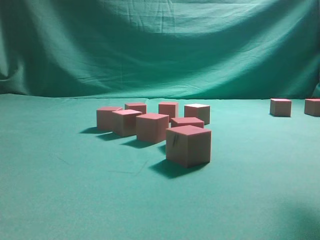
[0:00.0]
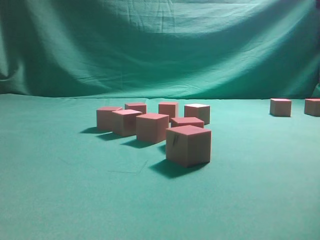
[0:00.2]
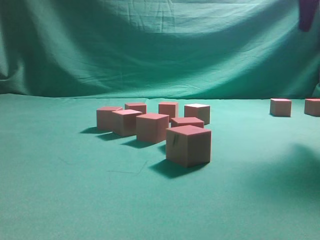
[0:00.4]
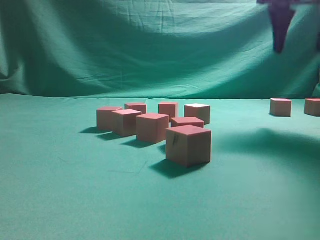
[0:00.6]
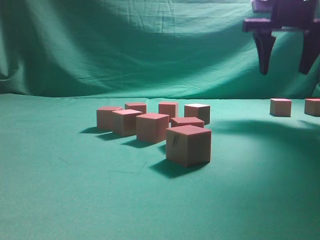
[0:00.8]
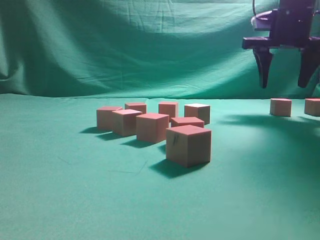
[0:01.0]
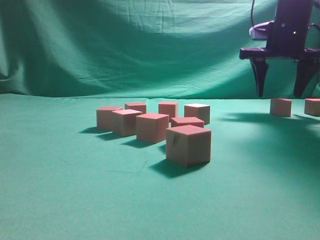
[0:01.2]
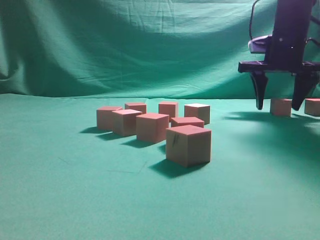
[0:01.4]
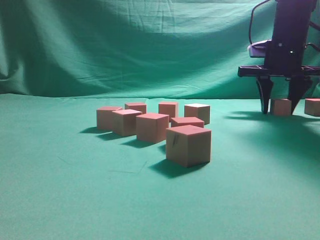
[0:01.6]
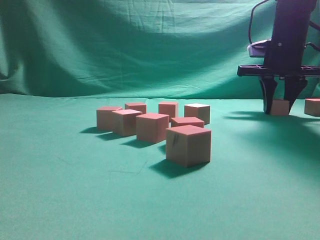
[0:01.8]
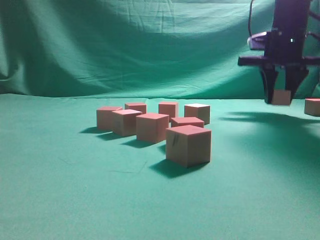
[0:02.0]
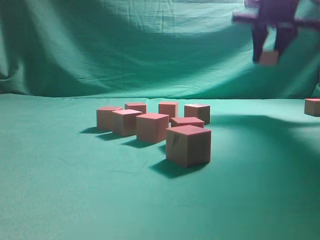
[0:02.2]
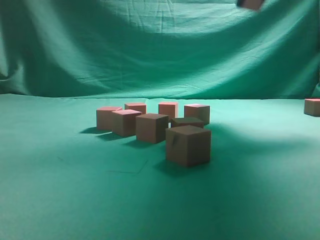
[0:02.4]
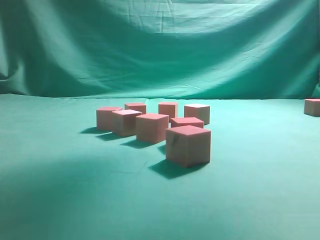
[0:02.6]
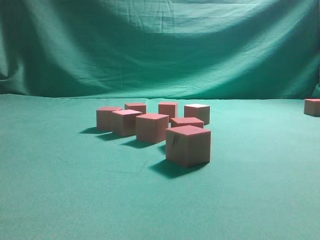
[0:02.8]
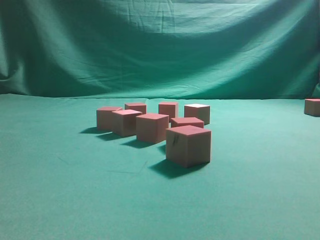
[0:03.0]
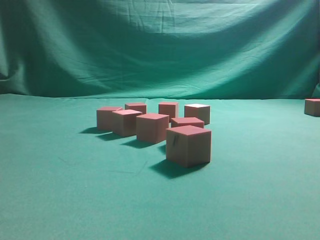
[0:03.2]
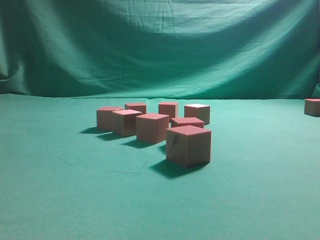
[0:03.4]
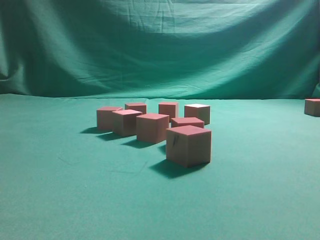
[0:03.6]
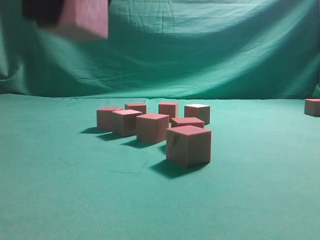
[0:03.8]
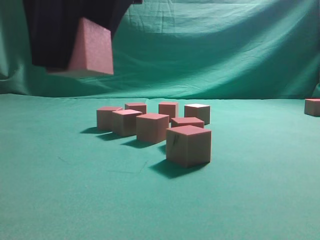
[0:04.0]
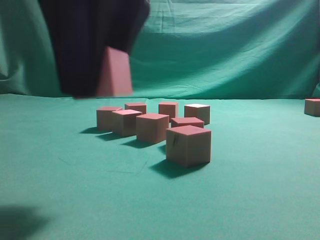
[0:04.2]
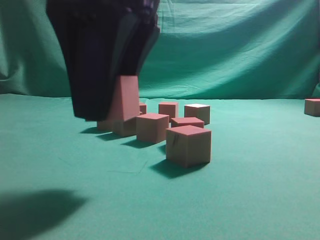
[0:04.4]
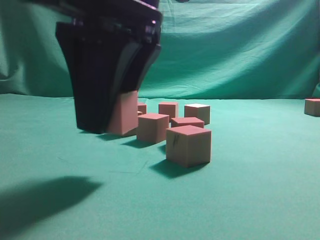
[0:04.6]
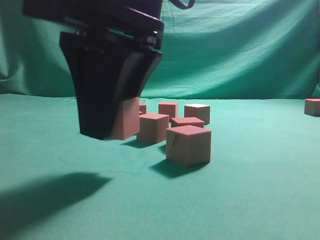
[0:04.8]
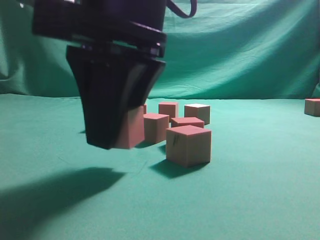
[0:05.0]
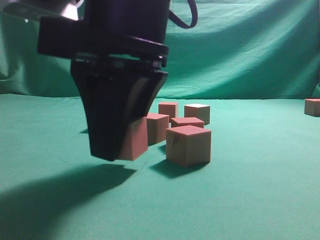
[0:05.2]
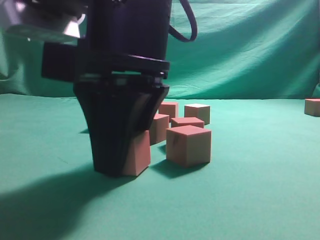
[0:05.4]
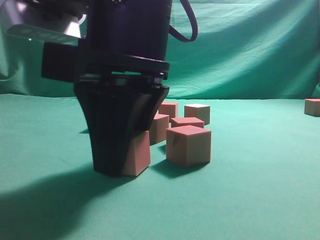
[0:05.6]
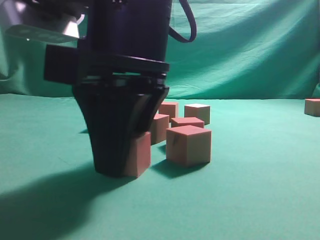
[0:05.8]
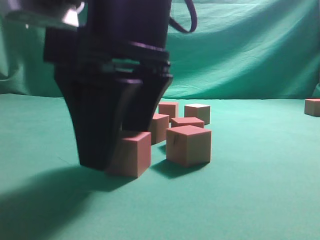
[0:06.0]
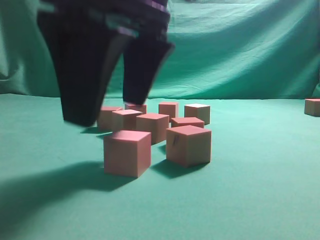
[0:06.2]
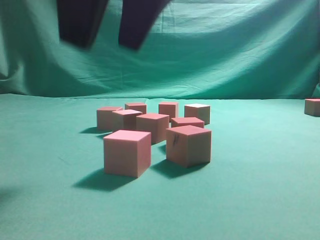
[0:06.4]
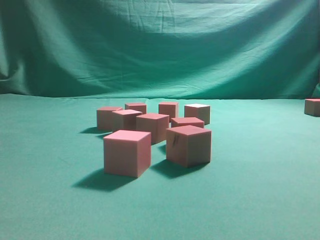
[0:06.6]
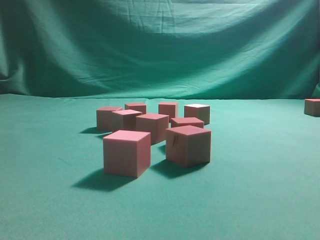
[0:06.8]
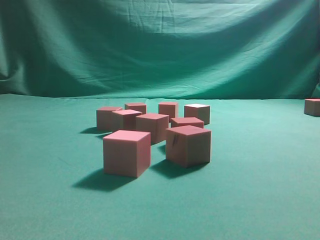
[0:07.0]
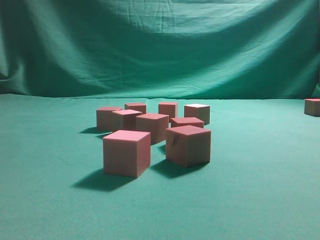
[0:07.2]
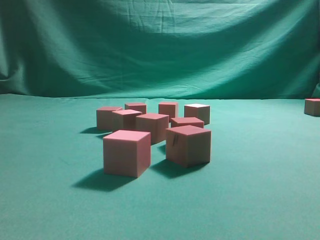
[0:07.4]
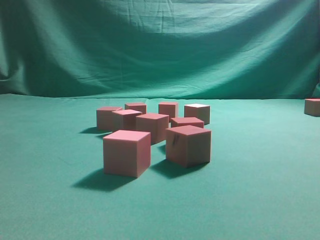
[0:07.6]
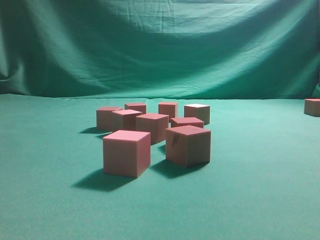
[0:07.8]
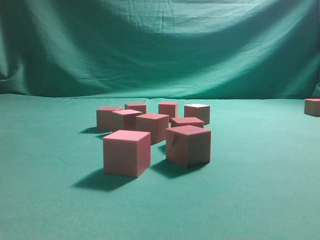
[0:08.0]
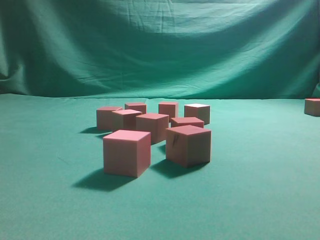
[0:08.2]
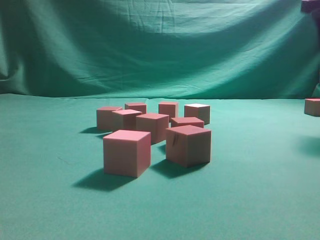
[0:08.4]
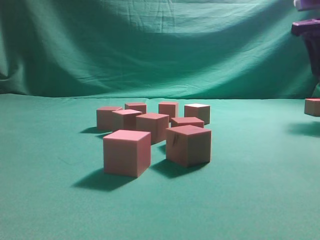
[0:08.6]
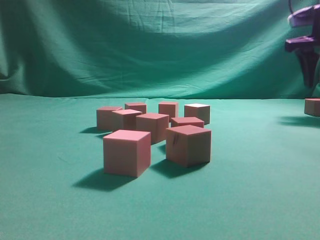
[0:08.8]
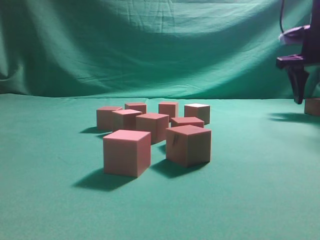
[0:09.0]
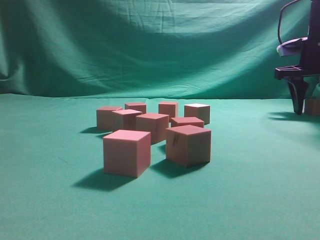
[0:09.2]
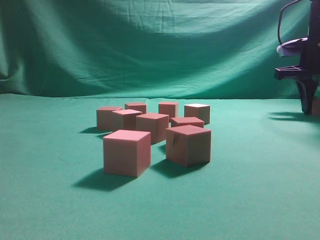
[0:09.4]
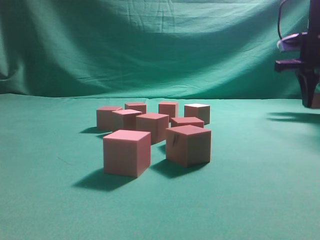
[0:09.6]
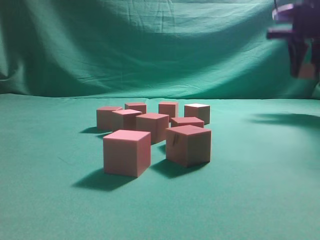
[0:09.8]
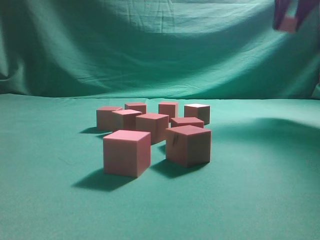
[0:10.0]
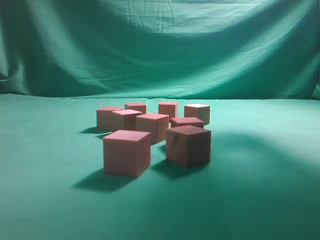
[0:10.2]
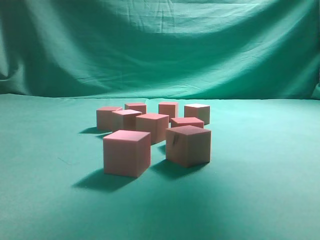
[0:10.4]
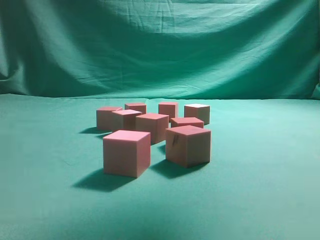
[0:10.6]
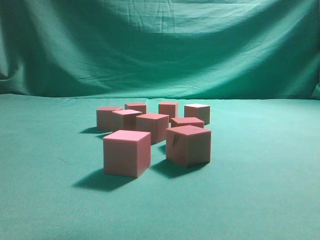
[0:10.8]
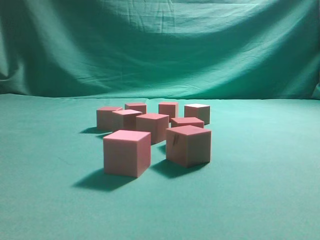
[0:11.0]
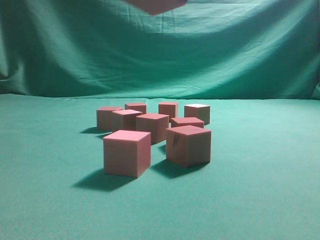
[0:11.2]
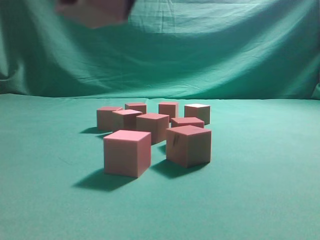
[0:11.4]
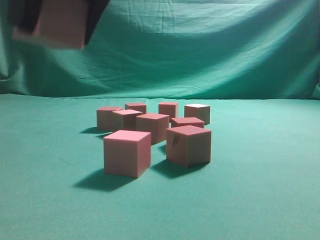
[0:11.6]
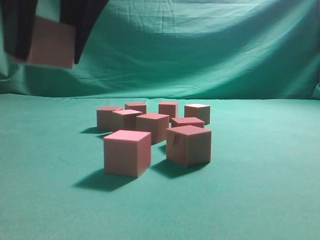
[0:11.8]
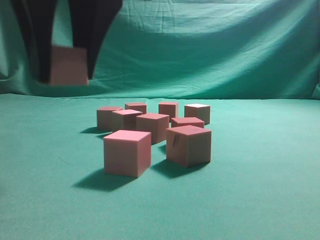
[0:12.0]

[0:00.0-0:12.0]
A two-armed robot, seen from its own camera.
Task of the whole recording: pick up the multiple cubes in two columns one by one and place them in another position on the table.
Step, 0:00.0 to 0:02.0: Pick up the block on the table.
Step, 0:02.2 to 0:06.2: Place the block at the correct position to assemble the letter S.
Step, 0:06.4 to 0:09.6: Pick up the block on the table.
0:00.0 to 0:01.6: The right gripper heads forward and downward, covering approximately 30 cm.
0:01.6 to 0:03.0: The right gripper goes approximately 35 cm backward, upward and to the left.
0:03.0 to 0:04.4: The right gripper is displaced downward and to the left by roughly 20 cm.
0:04.4 to 0:06.0: The right gripper opens.
0:06.0 to 0:07.6: The right gripper is displaced to the right and upward by some 30 cm.
0:07.6 to 0:09.0: The right gripper is displaced forward and downward by roughly 35 cm.
0:09.0 to 0:10.4: The right gripper moves upward, backward and to the left, some 25 cm, and closes its fingers.
0:10.4 to 0:12.0: The right gripper is displaced to the left, downward and backward by roughly 35 cm.

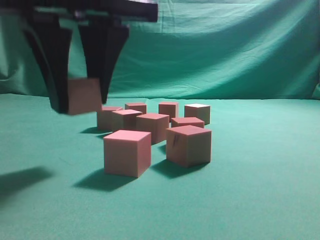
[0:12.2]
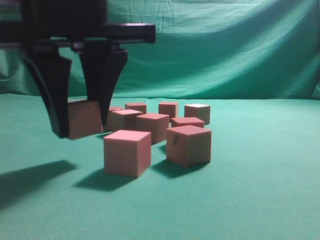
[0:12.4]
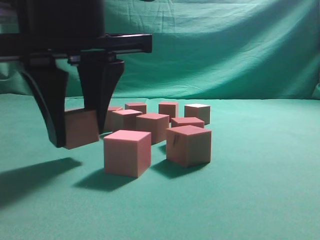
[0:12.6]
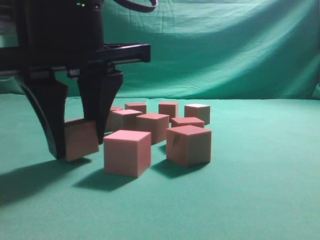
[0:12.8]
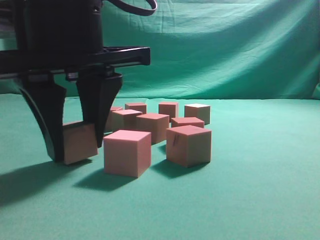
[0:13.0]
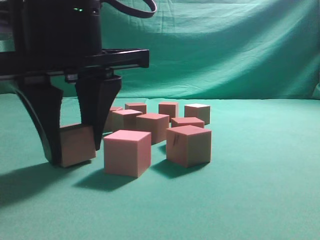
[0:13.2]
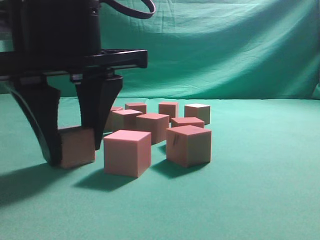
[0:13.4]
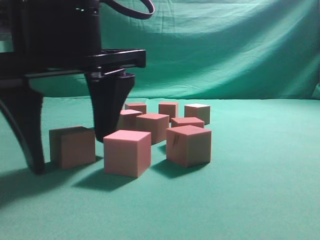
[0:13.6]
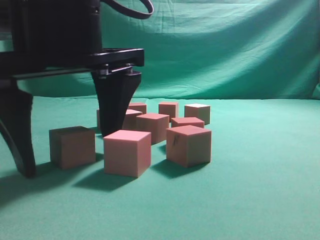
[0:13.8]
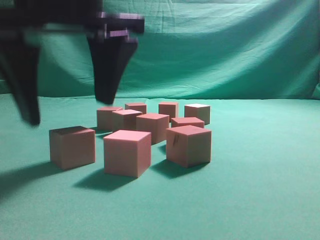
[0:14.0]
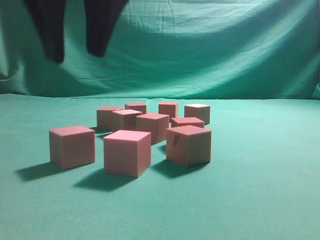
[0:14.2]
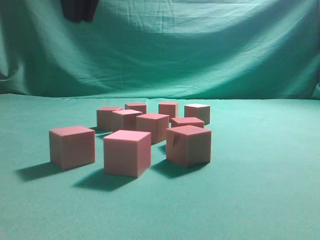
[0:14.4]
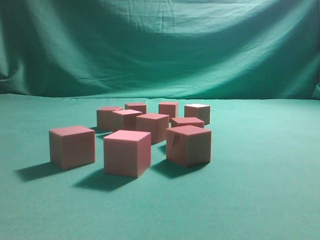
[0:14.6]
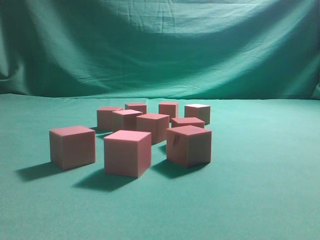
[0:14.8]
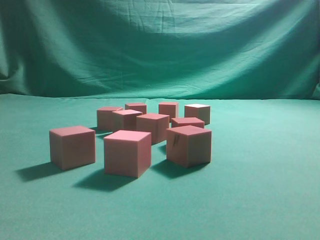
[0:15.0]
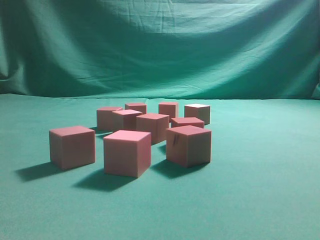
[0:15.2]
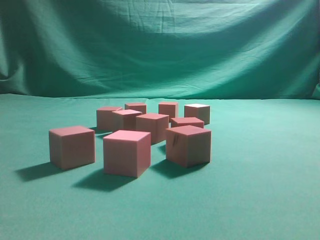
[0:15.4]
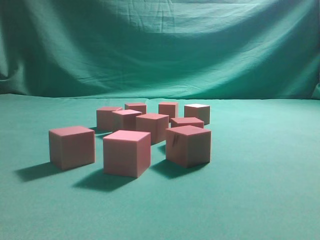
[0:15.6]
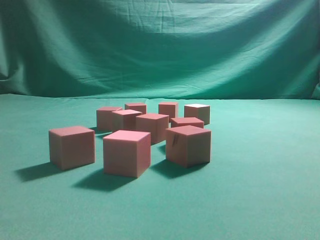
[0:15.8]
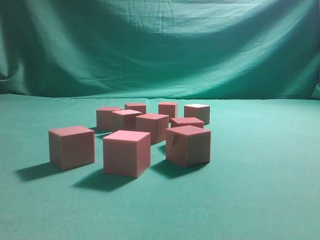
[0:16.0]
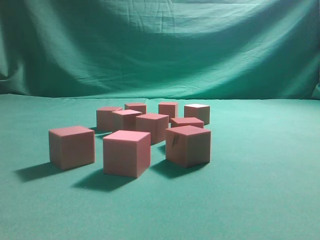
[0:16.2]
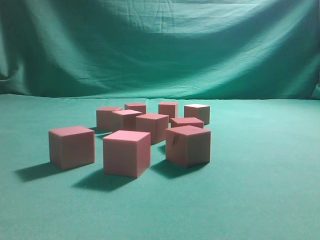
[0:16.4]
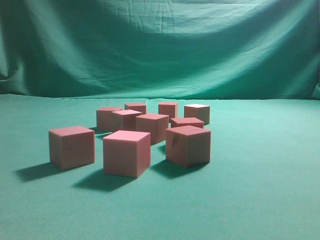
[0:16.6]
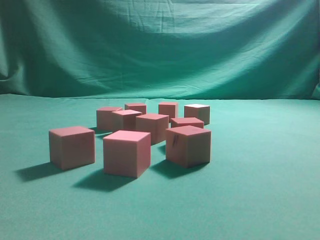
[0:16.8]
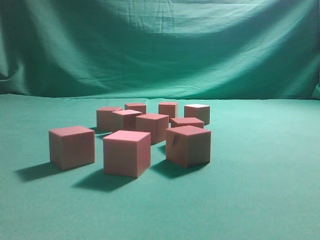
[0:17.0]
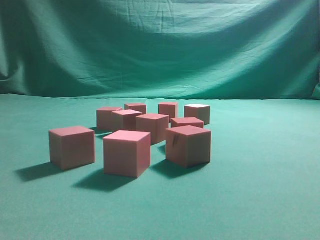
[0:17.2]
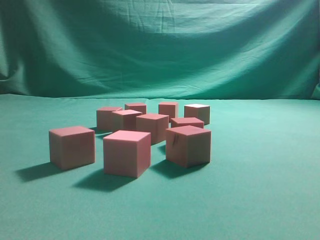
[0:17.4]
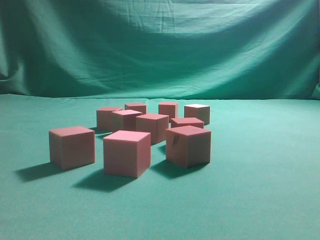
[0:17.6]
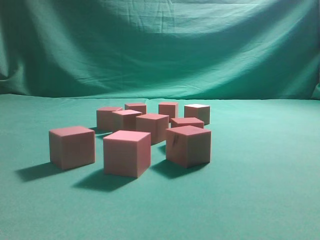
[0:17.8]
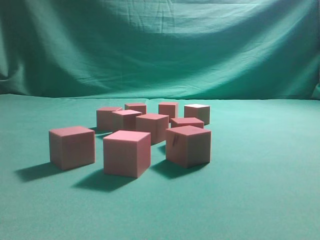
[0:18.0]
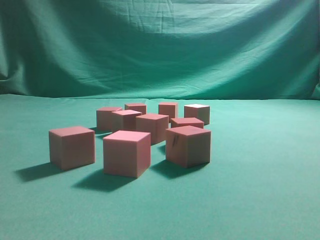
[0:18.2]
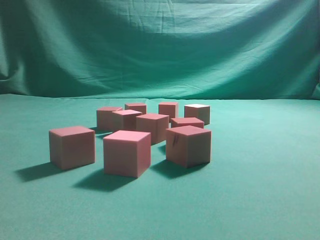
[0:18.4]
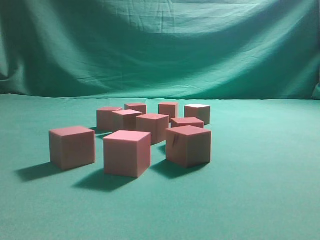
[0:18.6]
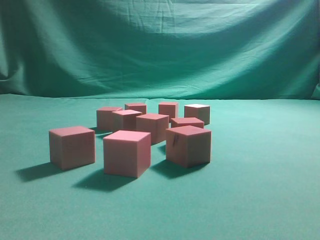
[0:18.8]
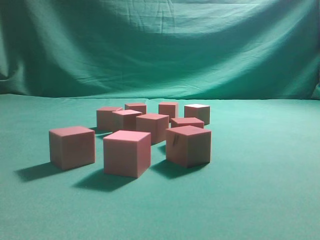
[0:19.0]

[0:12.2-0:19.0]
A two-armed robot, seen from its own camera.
Task of the whole recording: pick up the multiple cubes in two columns one by one and place them in another position on the table.
0:12.2 to 0:13.6: There are only small adjustments of the grippers.
0:13.6 to 0:15.0: The right gripper moves upward and to the right, about 25 cm, and closes its fingers.
